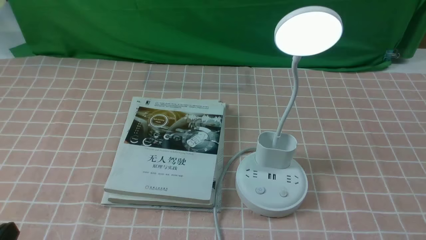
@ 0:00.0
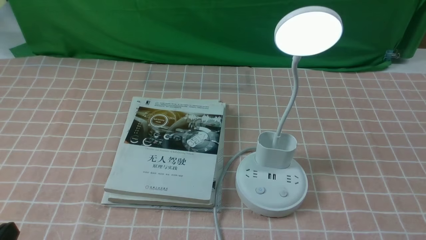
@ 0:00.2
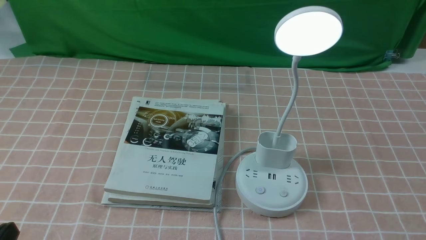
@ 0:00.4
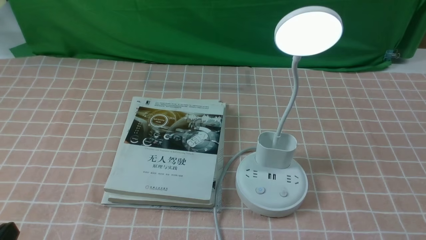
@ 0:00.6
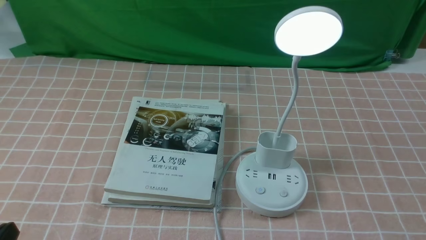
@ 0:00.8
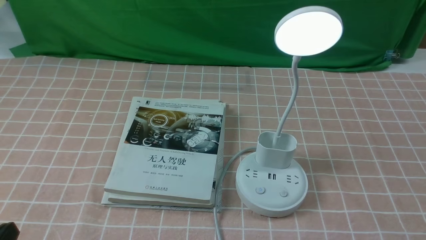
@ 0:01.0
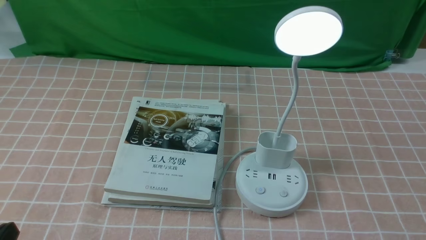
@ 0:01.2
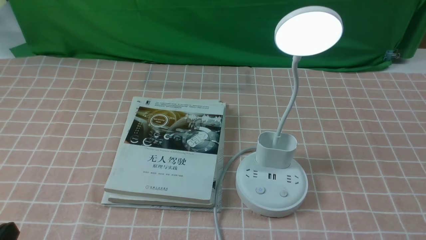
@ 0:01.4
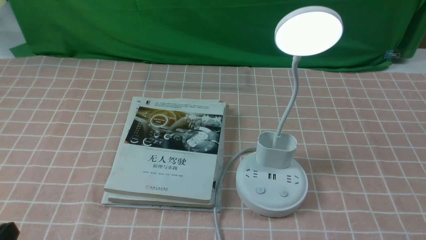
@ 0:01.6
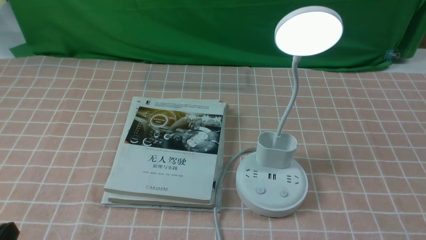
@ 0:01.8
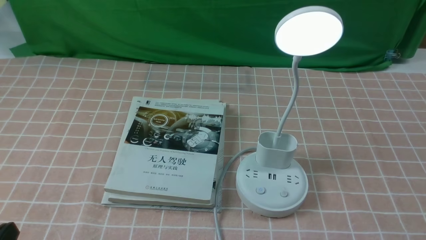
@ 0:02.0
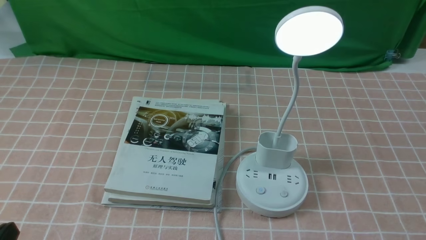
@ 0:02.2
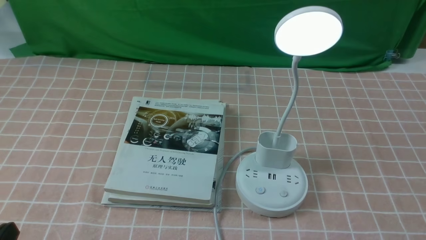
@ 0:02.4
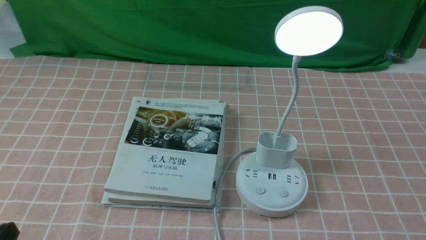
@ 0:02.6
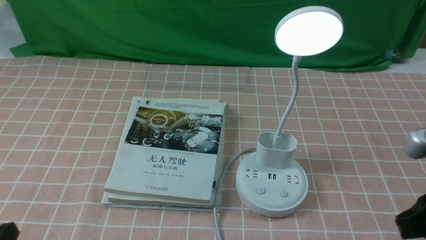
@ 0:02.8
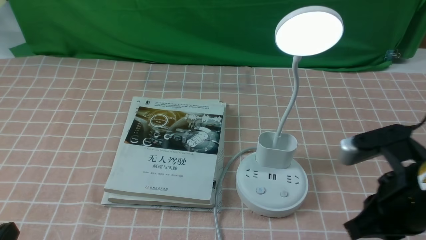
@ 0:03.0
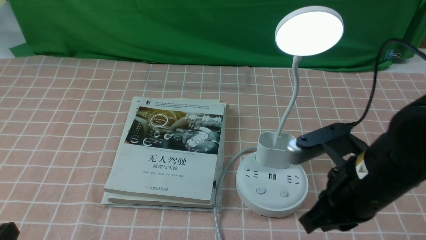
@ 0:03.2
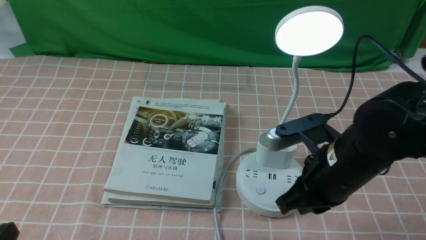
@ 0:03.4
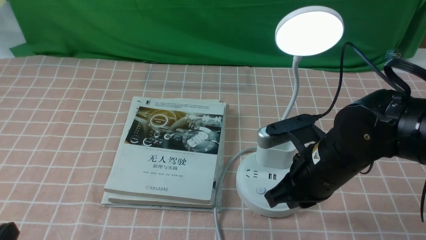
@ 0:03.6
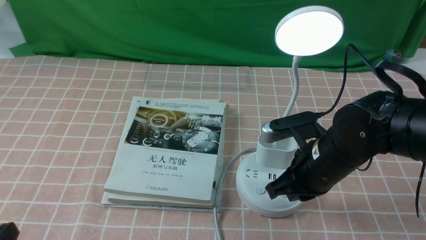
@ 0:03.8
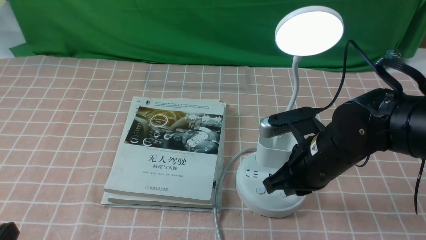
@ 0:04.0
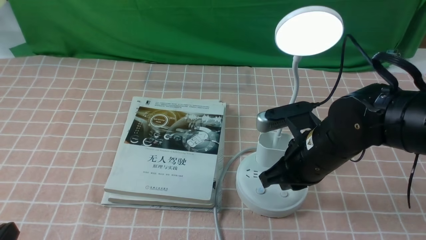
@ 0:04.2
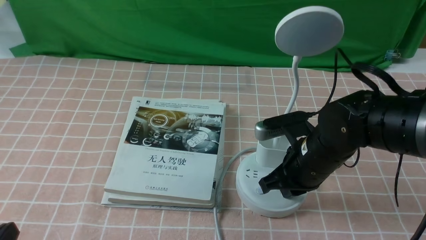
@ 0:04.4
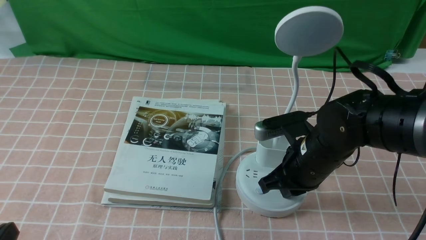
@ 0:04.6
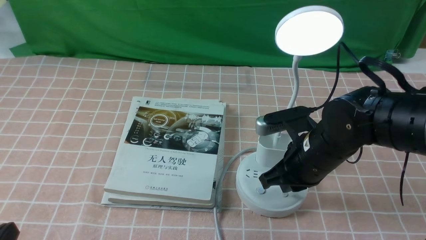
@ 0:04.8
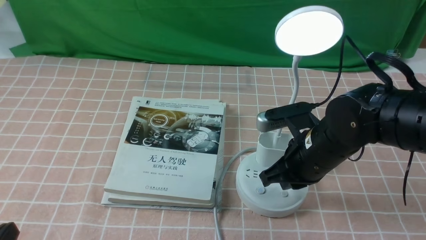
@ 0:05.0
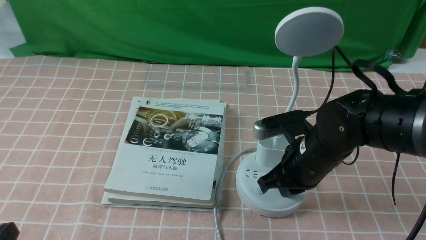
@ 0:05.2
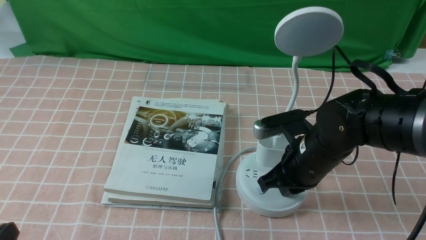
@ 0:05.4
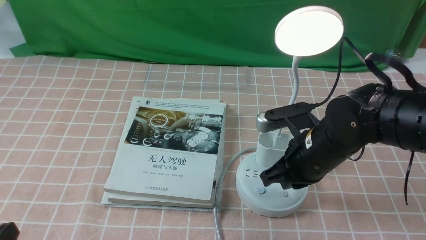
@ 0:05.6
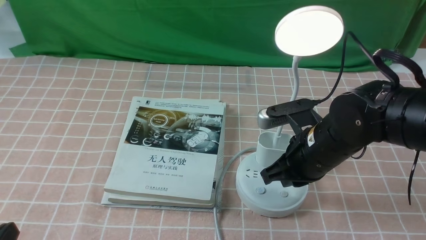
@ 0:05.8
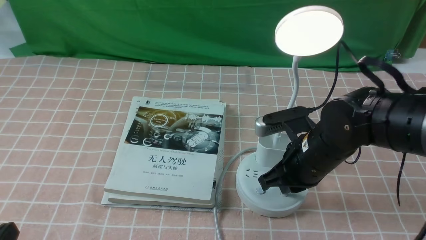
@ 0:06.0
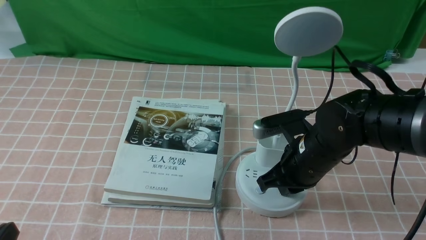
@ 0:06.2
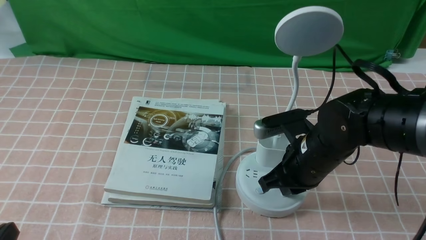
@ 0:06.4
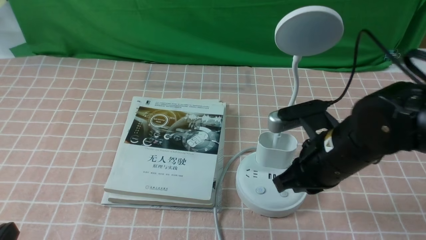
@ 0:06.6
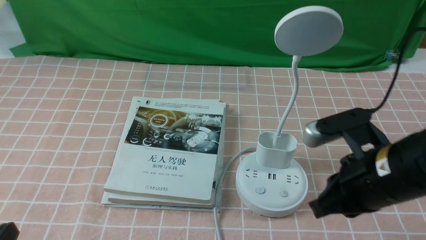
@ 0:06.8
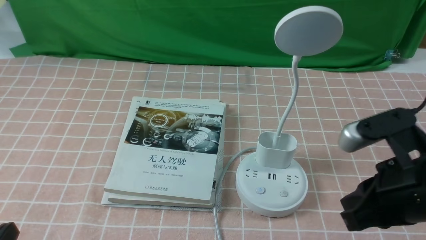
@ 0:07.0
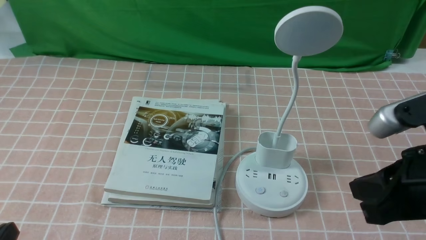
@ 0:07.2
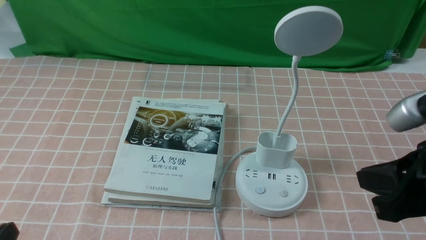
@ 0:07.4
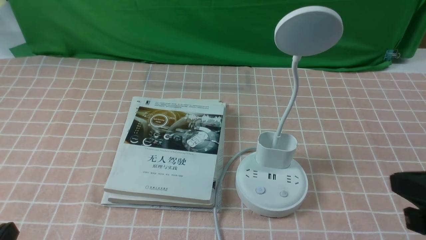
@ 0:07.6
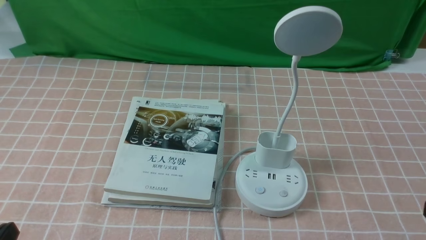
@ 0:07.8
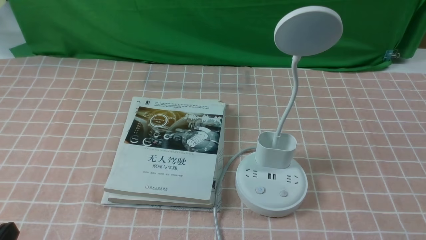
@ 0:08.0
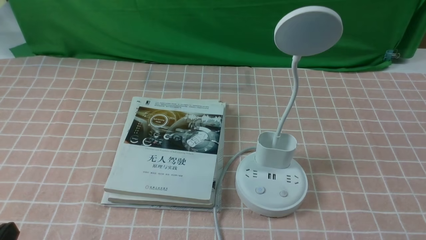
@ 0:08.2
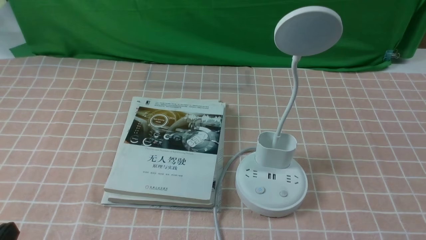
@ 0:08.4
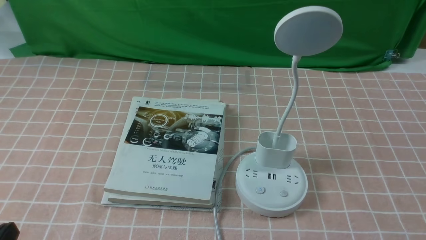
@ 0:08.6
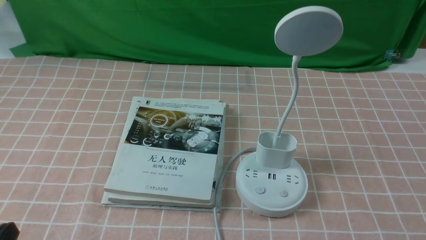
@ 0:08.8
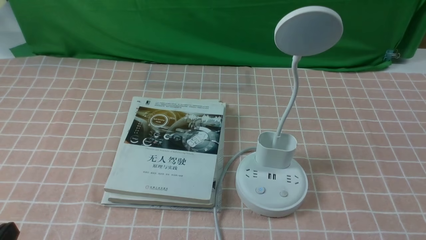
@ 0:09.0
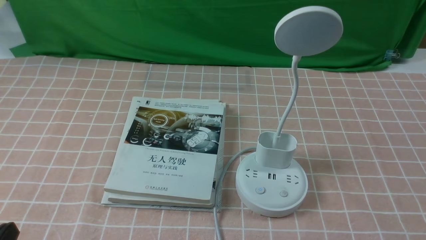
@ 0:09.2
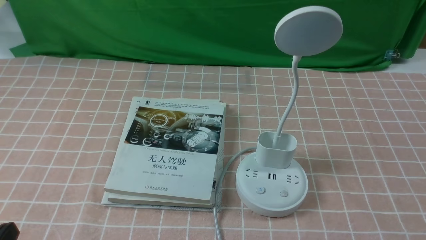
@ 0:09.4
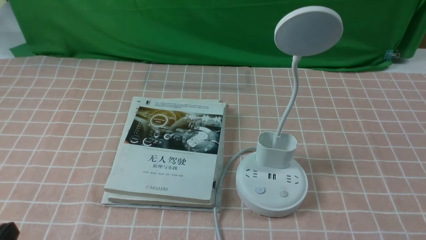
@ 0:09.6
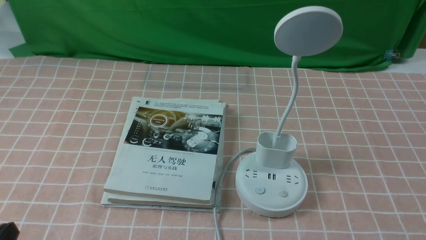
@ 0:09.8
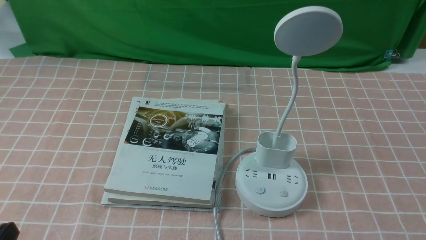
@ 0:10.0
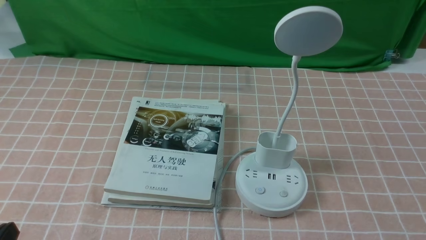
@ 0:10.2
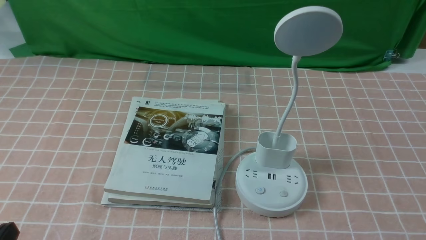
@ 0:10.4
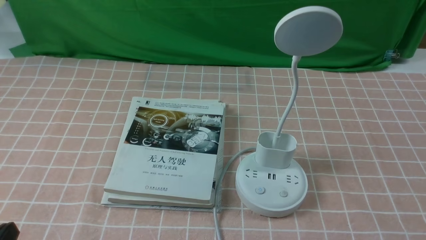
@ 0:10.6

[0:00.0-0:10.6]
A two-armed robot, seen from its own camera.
Task of the whole recording: turn off the table lamp on the pink coffee tablecloth by hand.
Step, 0:00.0 to 0:06.4: use the right arm to press the button switch on the lamp holder.
0:01.6 to 0:03.0: The right gripper moves forward, to the left and upward, about 20 cm, and closes.
0:03.0 to 0:04.6: The right gripper is displaced forward, downward and to the left by roughly 15 cm.
0:04.6 to 0:06.0: The grippers move only a little.
0:06.0 to 0:07.6: The right gripper is displaced backward, to the right and upward by approximately 25 cm.
0:07.6 to 0:09.0: The right gripper moves downward, backward and to the right, roughly 15 cm.
